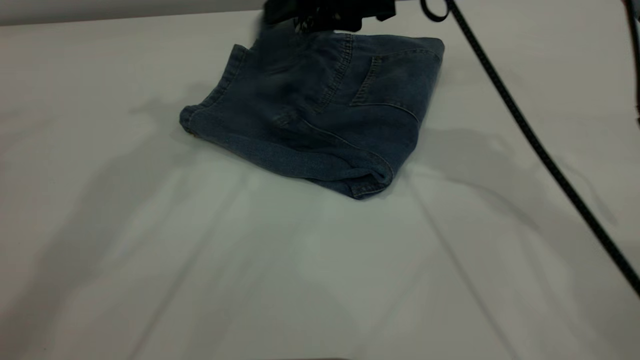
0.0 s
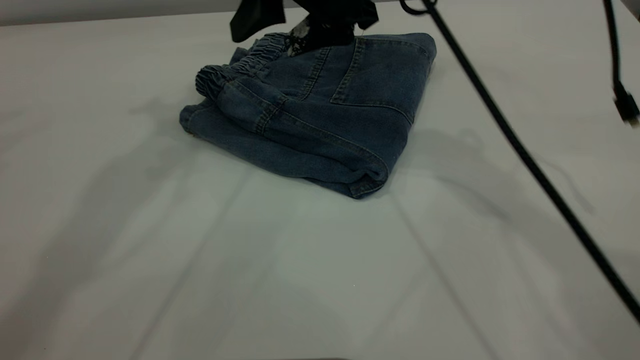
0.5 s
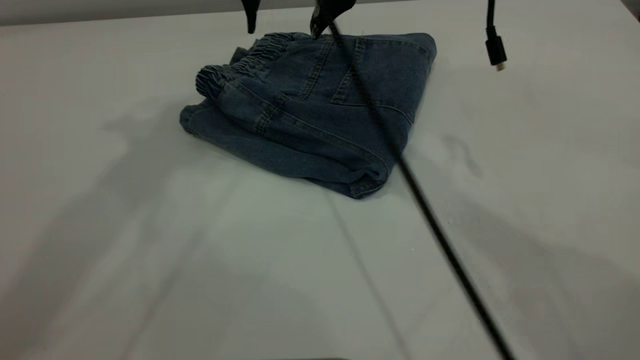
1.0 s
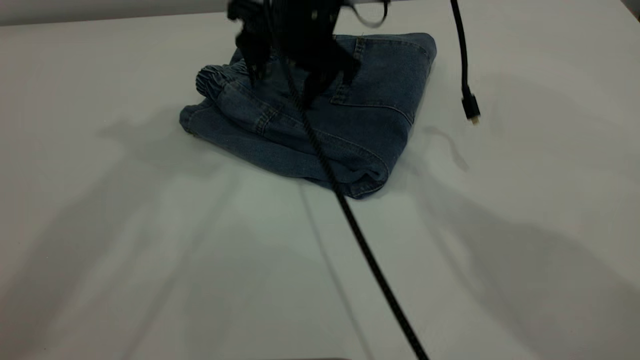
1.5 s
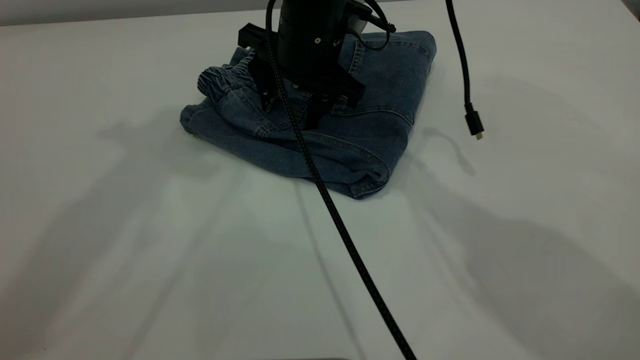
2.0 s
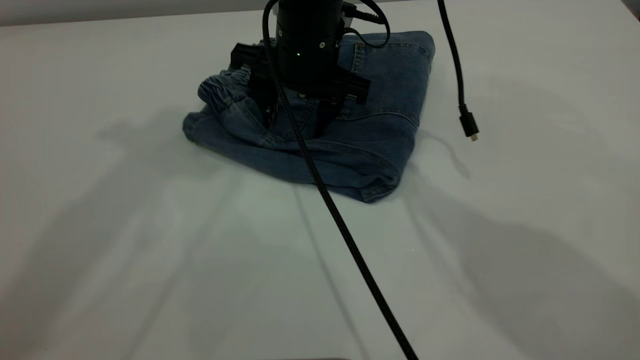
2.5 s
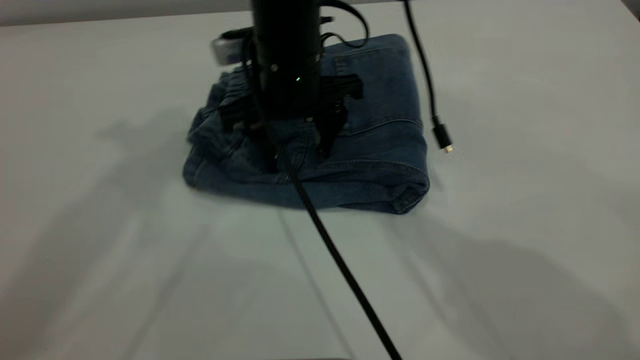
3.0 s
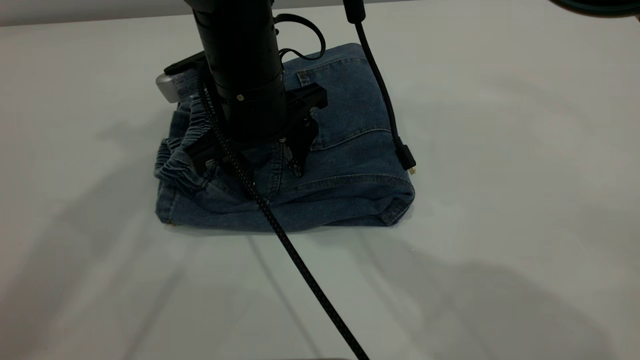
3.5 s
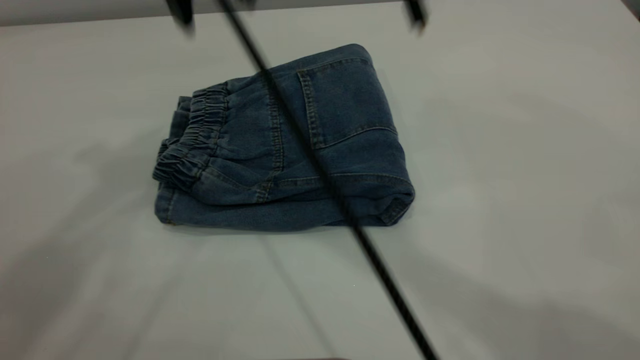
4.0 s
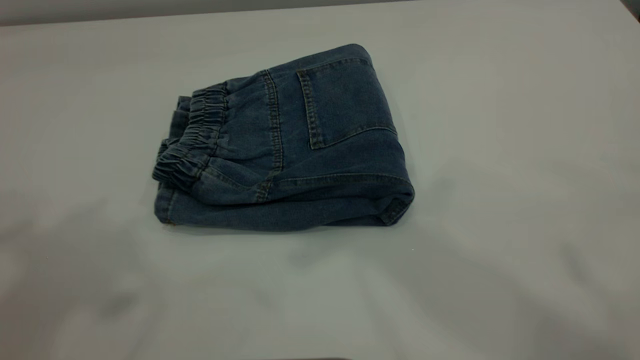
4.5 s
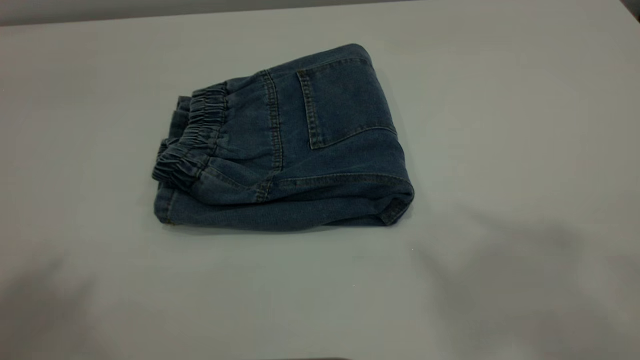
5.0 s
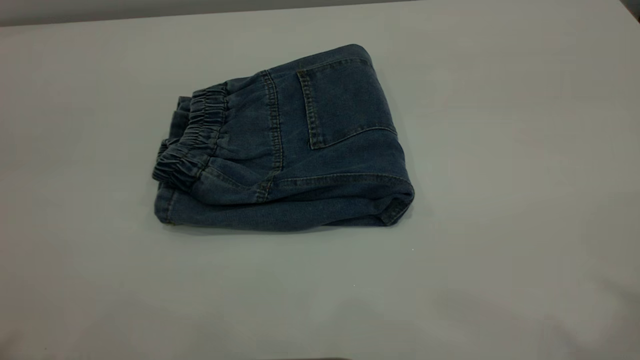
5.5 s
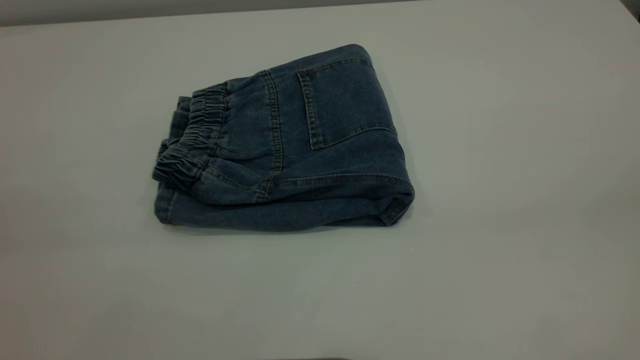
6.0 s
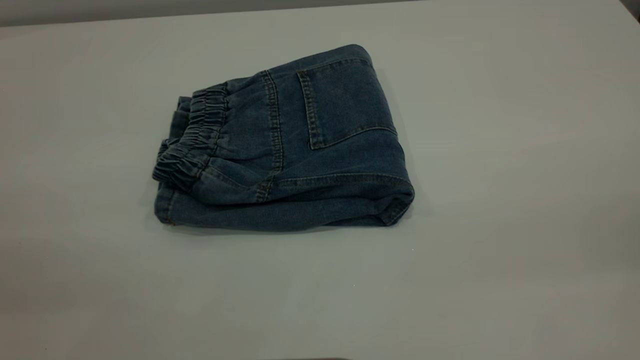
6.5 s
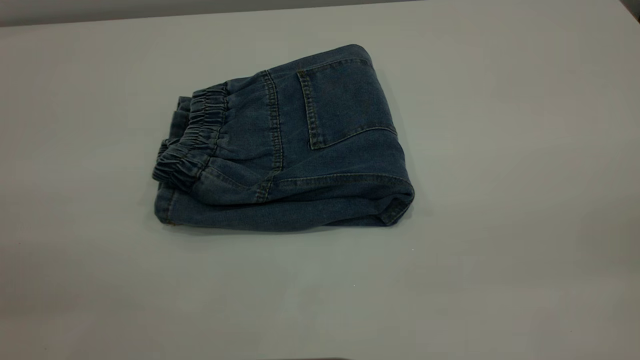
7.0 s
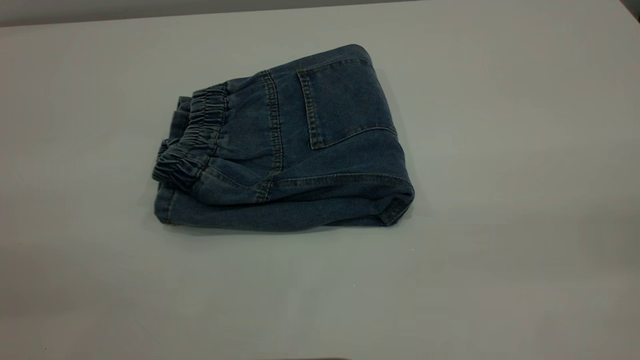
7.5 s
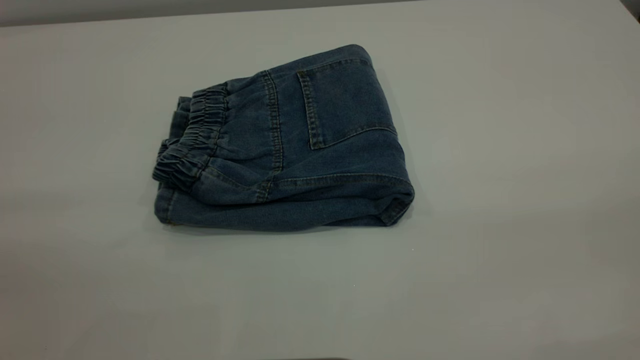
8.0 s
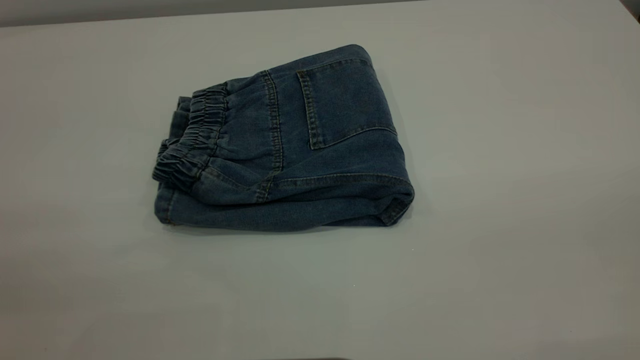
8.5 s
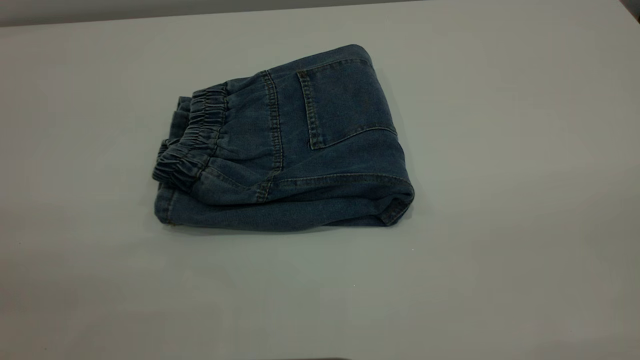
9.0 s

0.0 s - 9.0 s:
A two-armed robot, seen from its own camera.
0.0 s - 2.0 s: The right gripper moves to the left and downward, some 10 cm, while the left gripper is displaced upward by some 5 cm.
2.0 s - 4.5 s: The right gripper goes some 40 cm upward and backward. Meanwhile the left gripper heads backward and upward, covering roughly 15 cm.
